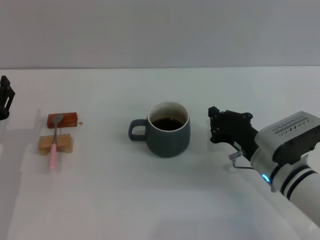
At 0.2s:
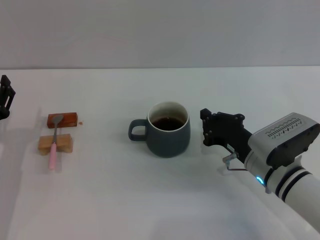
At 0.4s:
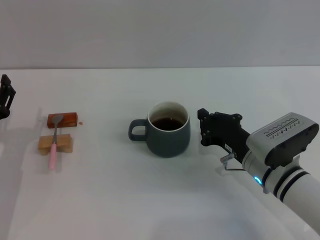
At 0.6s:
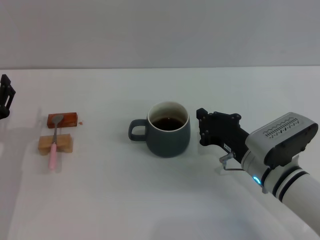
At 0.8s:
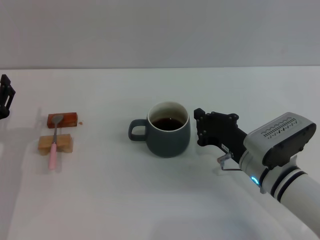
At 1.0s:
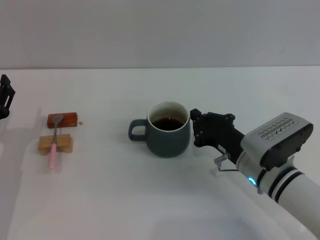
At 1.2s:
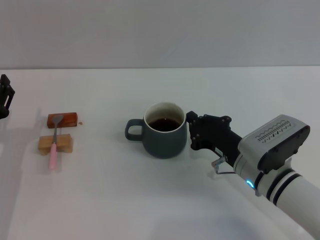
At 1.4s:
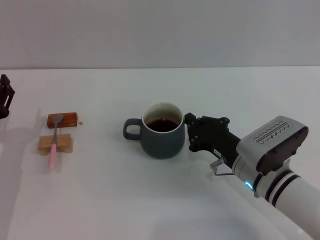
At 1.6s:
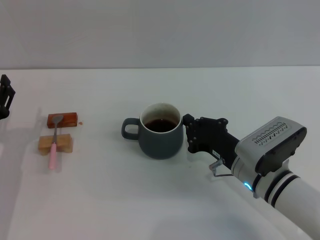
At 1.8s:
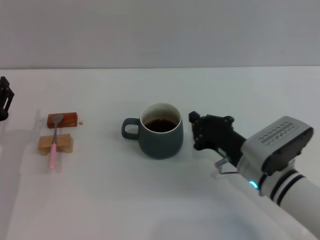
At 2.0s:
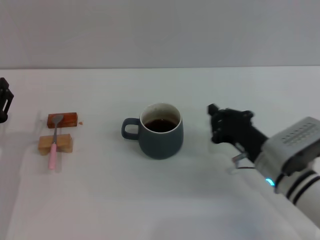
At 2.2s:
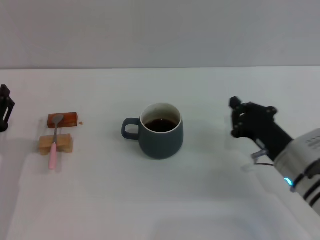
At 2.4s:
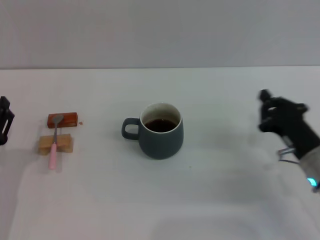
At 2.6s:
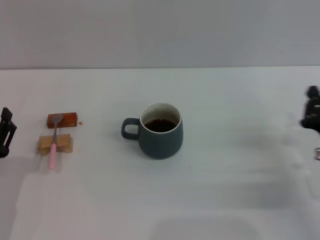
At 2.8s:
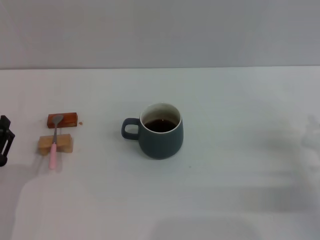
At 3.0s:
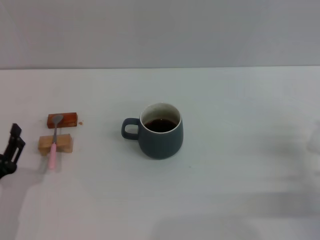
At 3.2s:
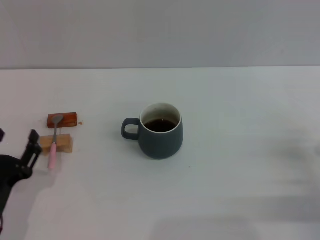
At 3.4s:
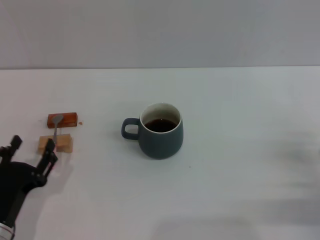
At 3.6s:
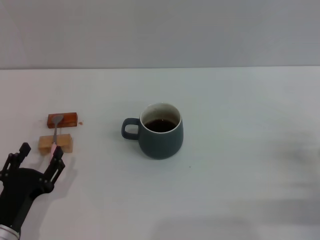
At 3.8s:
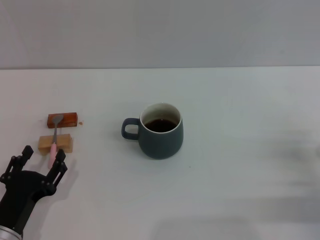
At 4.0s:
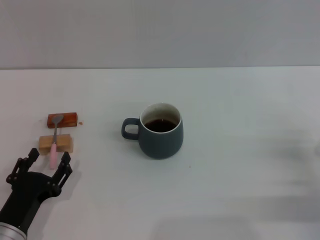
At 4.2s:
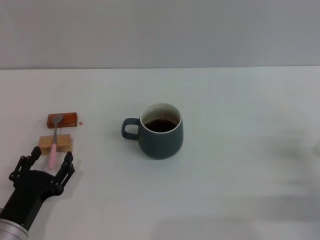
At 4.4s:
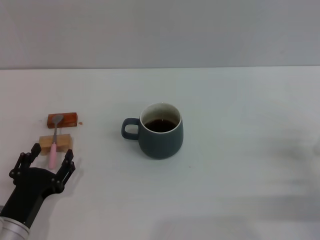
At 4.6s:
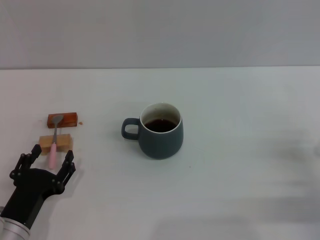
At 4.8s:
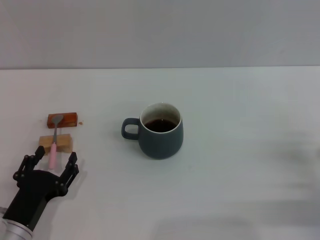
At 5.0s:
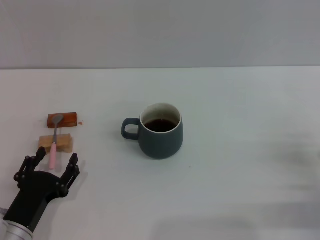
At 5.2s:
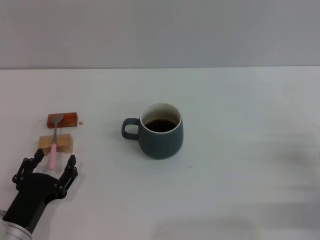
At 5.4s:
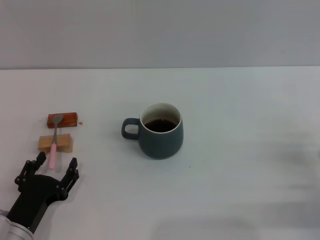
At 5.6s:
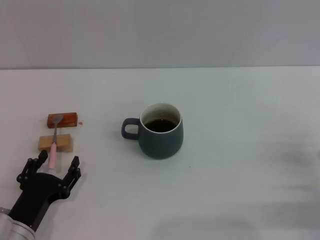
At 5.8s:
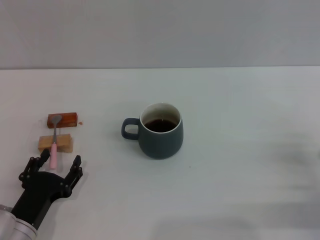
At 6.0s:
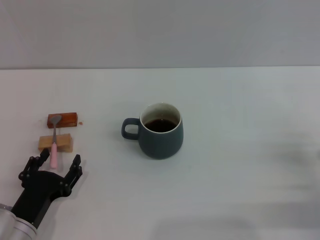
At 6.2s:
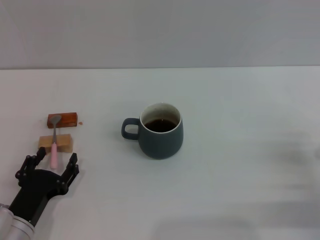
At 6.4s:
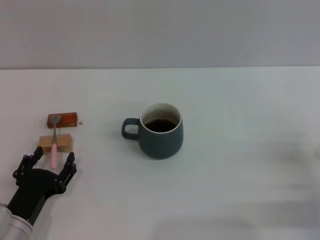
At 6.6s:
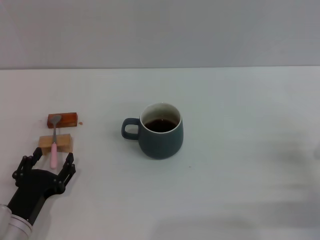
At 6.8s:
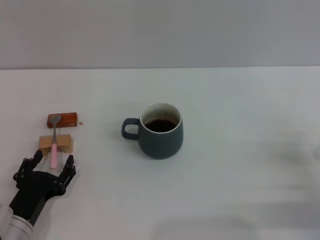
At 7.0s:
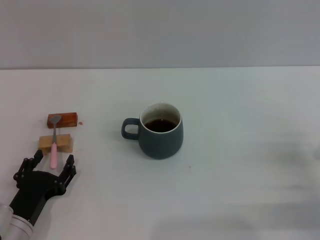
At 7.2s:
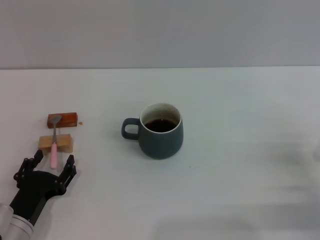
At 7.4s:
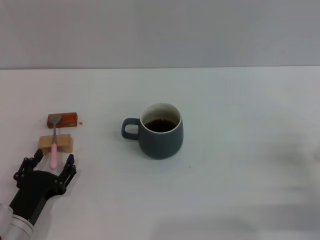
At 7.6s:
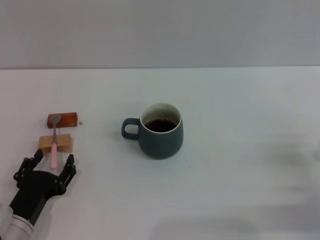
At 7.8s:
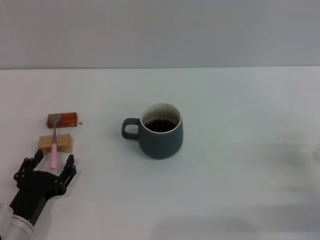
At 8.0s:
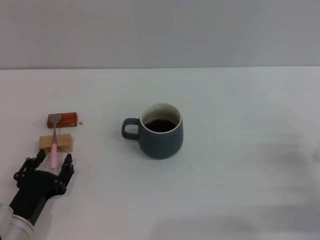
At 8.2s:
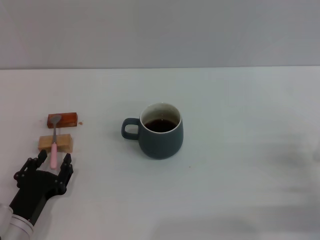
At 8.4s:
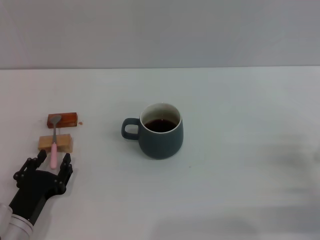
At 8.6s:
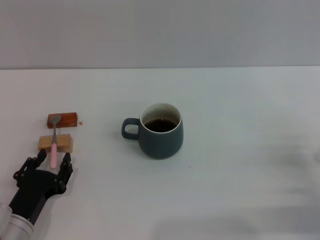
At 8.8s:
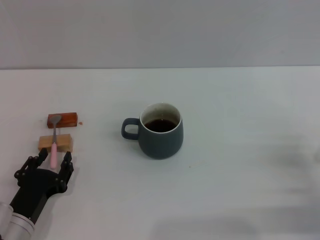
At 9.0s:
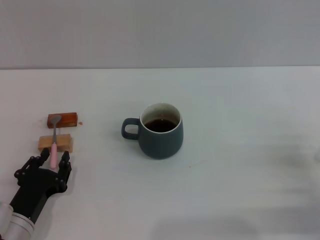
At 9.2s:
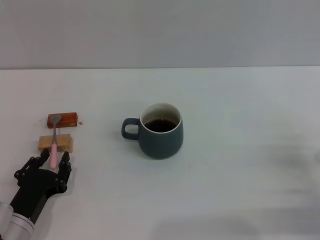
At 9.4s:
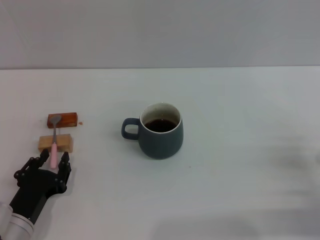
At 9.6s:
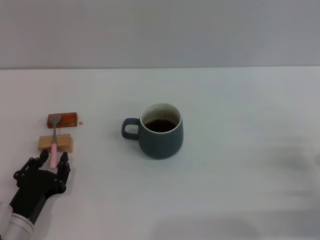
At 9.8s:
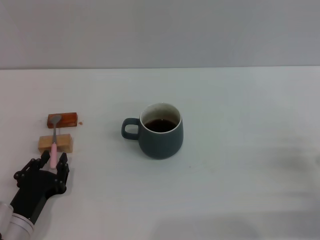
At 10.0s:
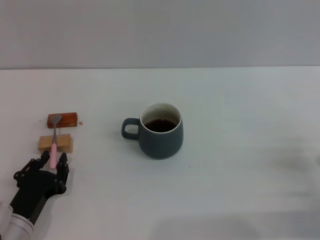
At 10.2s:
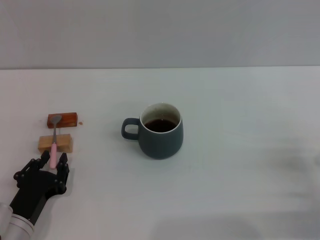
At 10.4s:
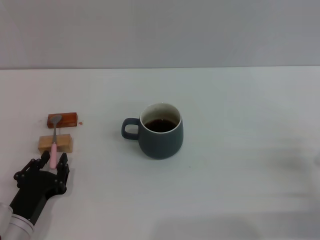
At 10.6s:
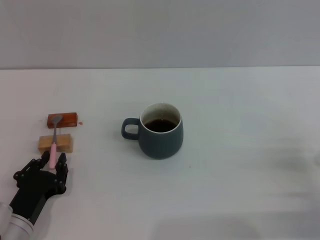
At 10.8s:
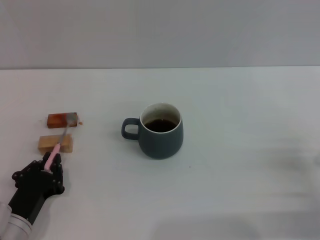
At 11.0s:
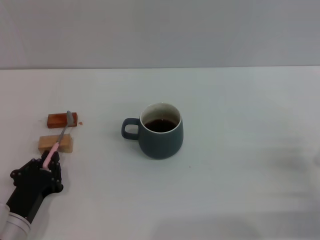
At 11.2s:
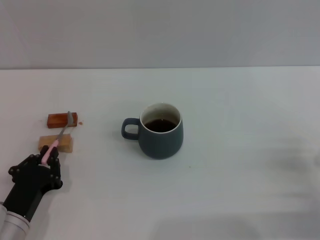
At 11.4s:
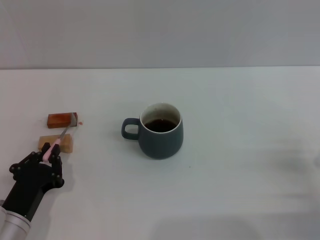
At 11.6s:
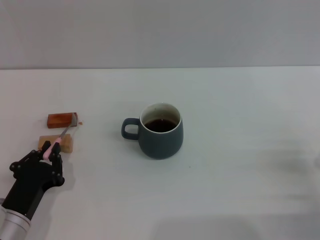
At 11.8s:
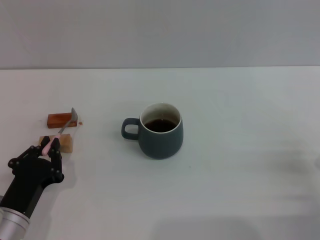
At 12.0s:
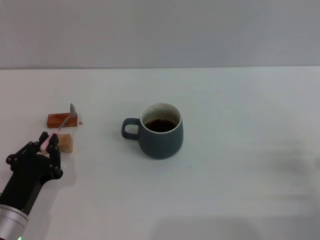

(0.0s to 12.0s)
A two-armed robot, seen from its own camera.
Task of the whole recording: Move the grey cup to the center, lift the pink spoon, stir it three times in the cup, and put the spoon into the cup.
0.0s - 1.6s: The grippers make only small movements.
1.6s - 3.0s: The left gripper is displaced backward by approximately 10 cm, while the right gripper heads to the right, covering about 15 cm.
3.0s - 4.4s: The grippers make only small movements.
4.4s - 6.0s: Neither gripper changes place.
6.0s - 7.6s: Both grippers stay about where they are.
7.6s - 9.0s: The left gripper closes its fingers.
9.0s - 10.4s: Both grippers stay put.
10.4s - 12.0s: The left gripper closes its fingers.

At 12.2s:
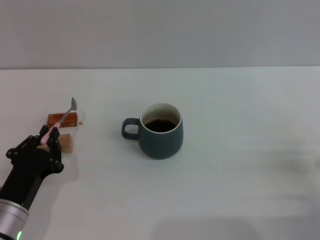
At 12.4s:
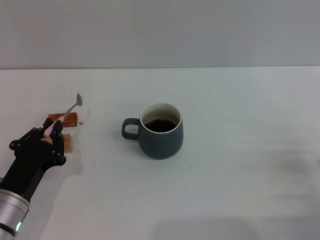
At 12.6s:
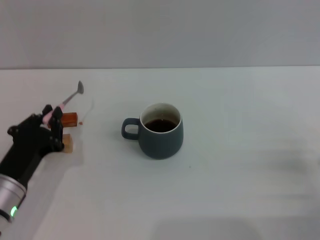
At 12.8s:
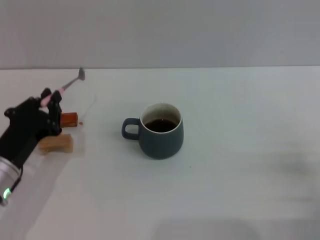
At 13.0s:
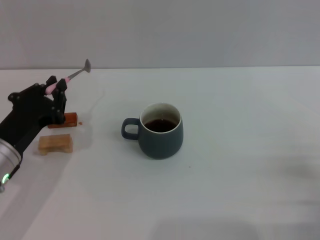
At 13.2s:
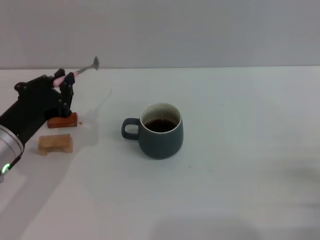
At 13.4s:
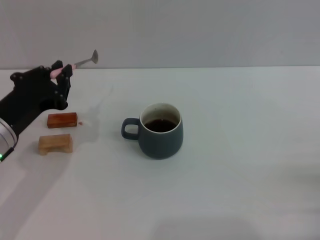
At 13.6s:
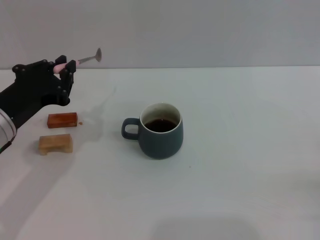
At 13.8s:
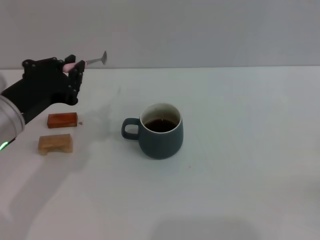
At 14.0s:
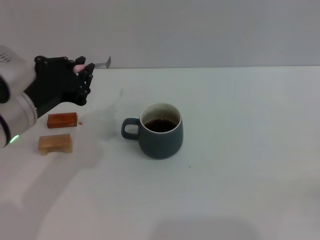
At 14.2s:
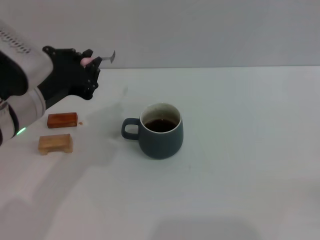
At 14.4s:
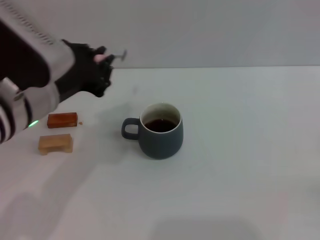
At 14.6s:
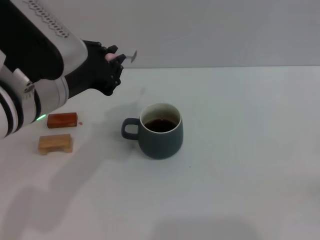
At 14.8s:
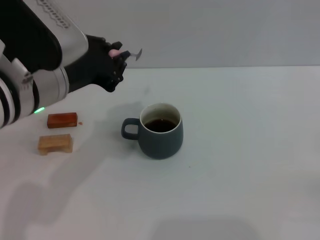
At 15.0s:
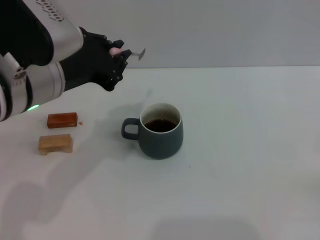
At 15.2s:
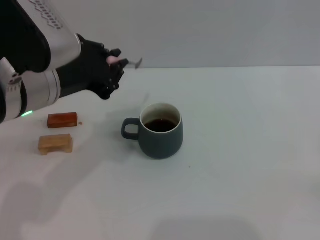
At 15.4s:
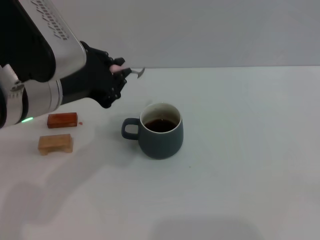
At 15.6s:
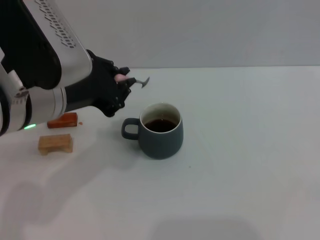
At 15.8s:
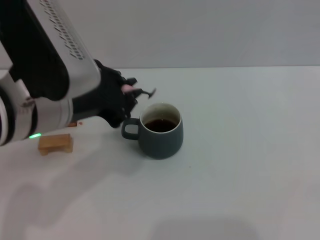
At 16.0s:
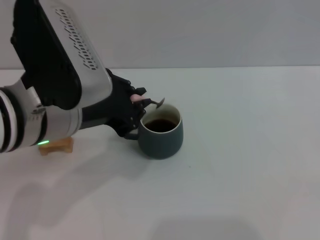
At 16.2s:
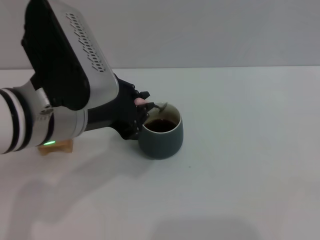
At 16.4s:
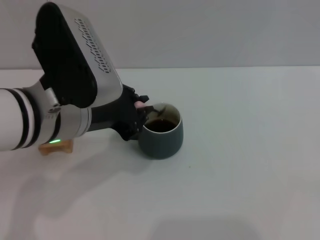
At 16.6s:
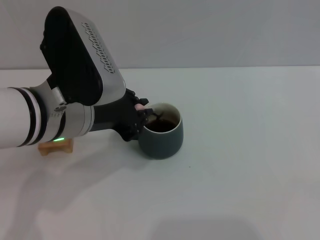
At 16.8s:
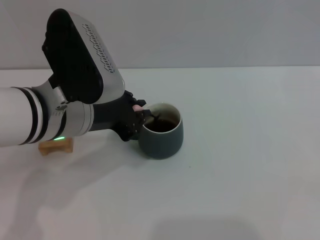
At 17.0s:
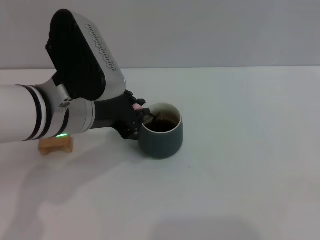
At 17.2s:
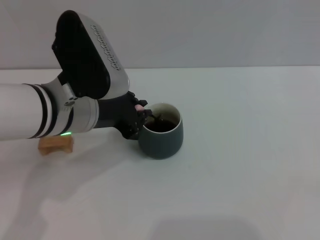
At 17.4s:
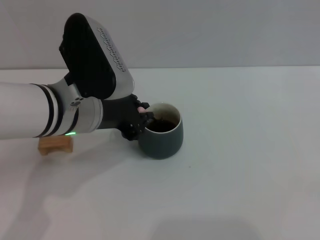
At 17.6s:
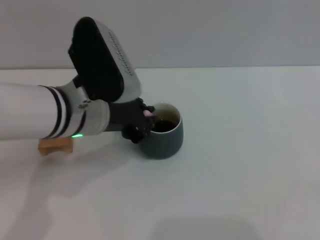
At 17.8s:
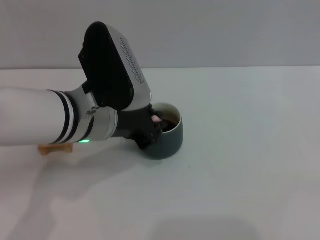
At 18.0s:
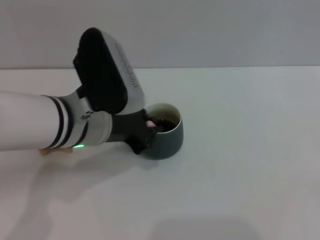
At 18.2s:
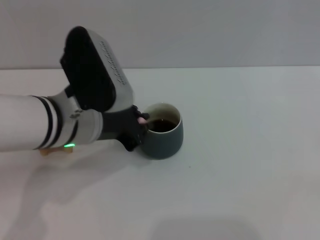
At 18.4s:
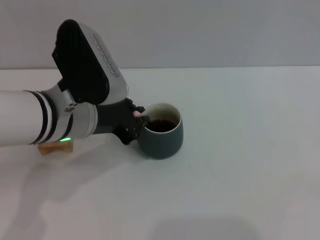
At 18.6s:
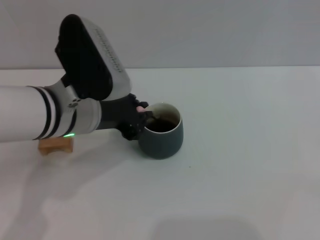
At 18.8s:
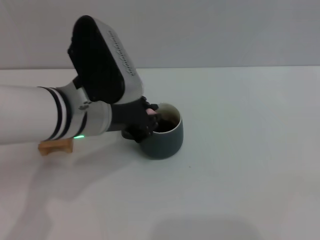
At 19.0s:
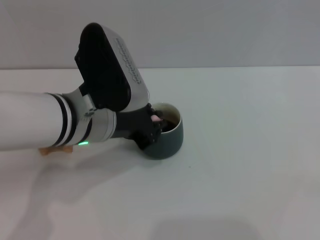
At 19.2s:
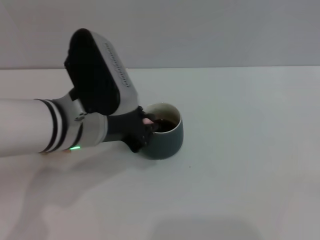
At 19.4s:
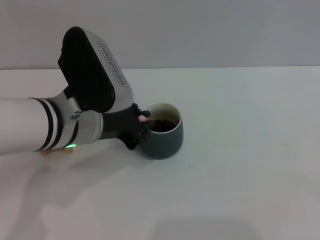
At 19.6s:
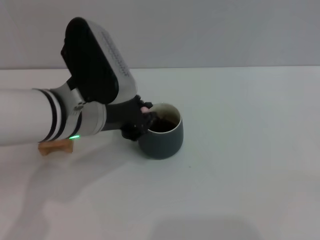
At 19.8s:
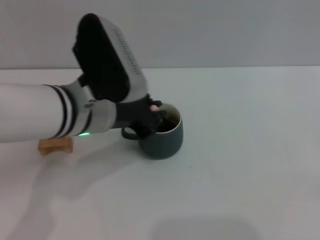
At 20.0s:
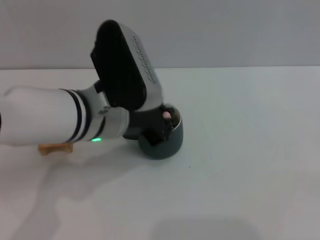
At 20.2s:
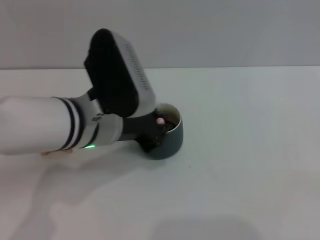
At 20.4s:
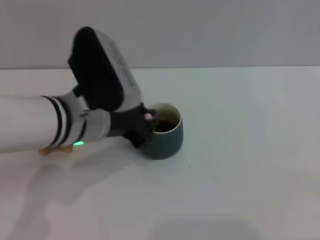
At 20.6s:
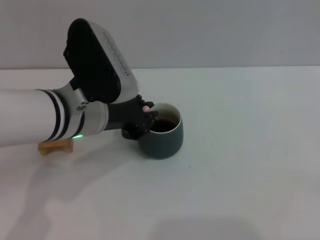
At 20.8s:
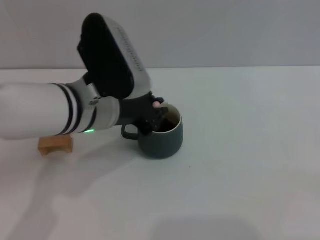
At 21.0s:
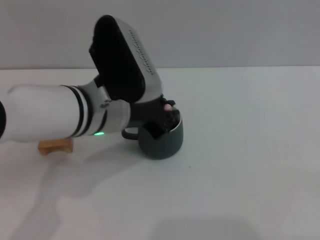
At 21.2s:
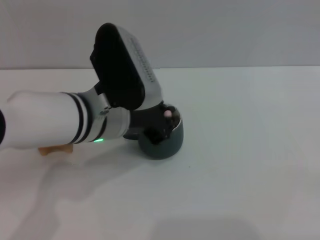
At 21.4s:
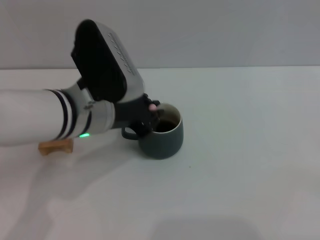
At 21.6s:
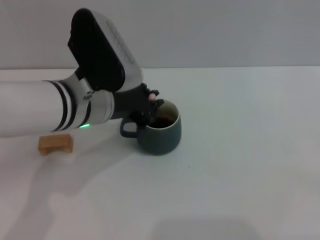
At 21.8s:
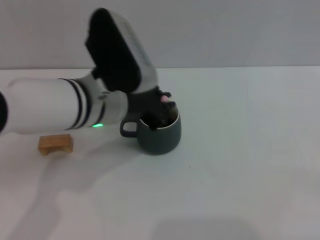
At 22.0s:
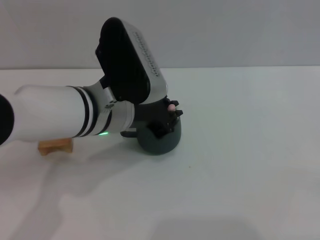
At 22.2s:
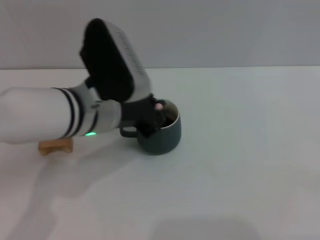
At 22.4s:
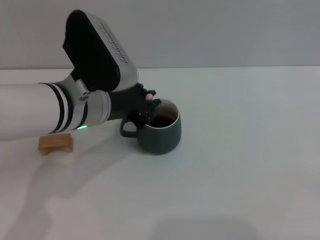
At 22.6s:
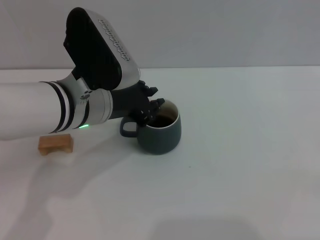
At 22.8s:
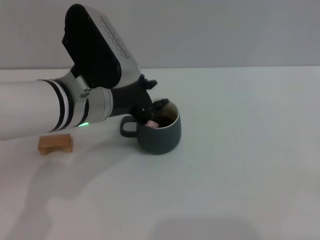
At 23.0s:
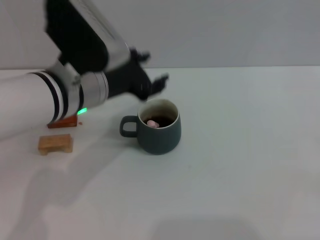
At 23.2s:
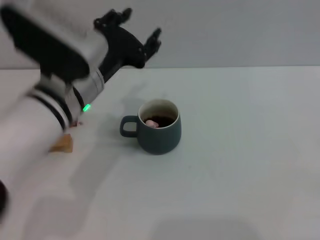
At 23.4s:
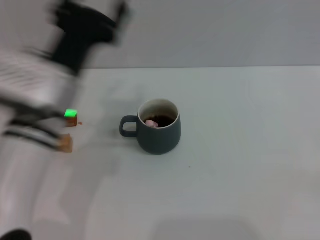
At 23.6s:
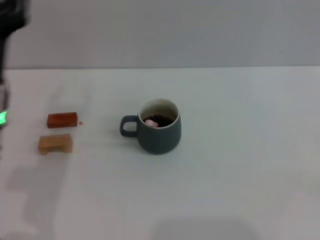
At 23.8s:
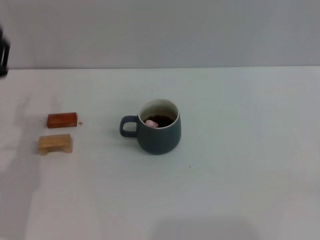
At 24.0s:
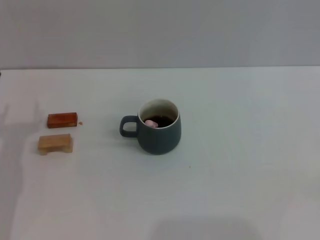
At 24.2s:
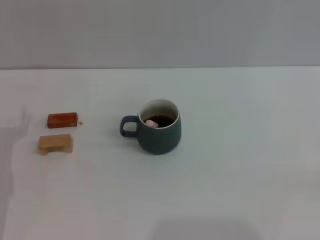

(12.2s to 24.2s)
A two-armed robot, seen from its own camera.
Task of the whole recording: Move the grey cup to the center, lift the pink spoon, stir it three times in the cup, and put the spoon into the cup.
Step, 12.4s - 22.6s: Stir the coffee in the cup with the left gripper.
12.2s - 13.8s: The left gripper heads upward and forward, covering about 15 cm, while the right gripper travels backward by about 5 cm.
13.8s - 15.2s: The left gripper heads upward and to the right, covering about 10 cm.
15.2s - 16.6s: The grippers stay close to where they were, moving slightly.
16.6s - 22.6s: The grippers make only small movements.
22.6s - 24.2s: The left gripper moves to the left and downward, about 20 cm, and opens its fingers.
